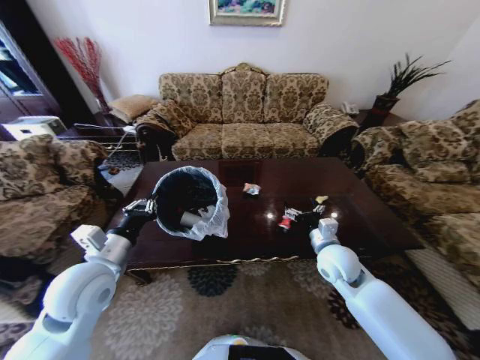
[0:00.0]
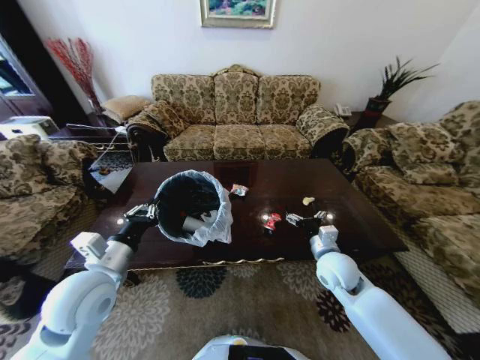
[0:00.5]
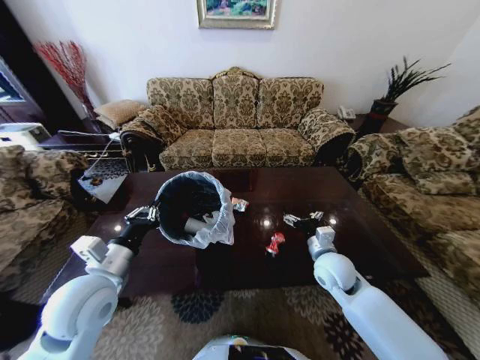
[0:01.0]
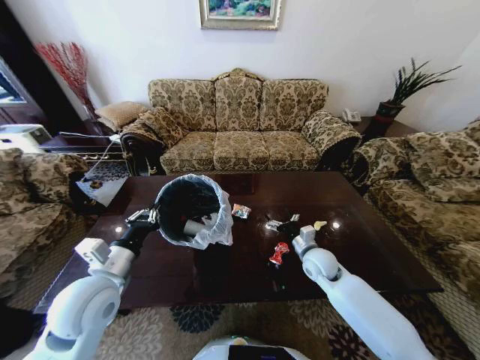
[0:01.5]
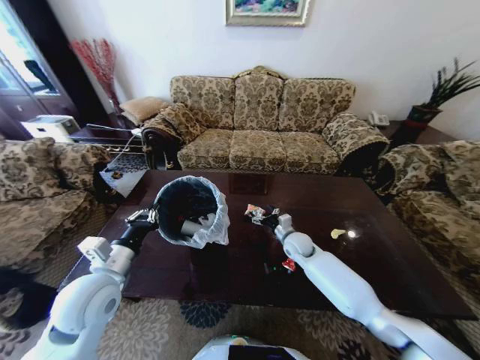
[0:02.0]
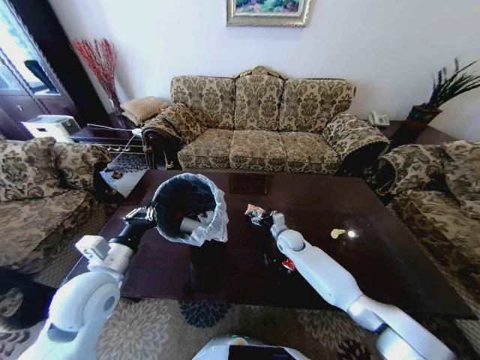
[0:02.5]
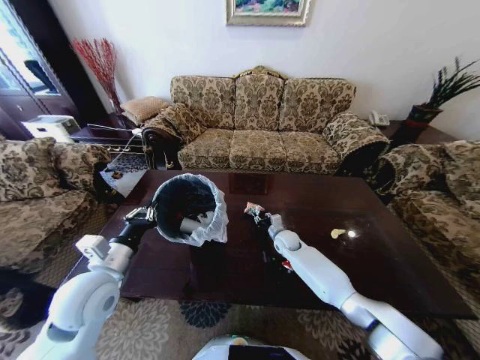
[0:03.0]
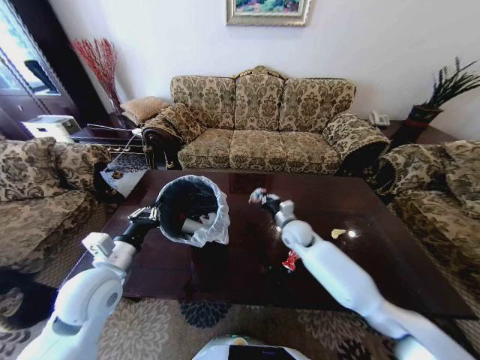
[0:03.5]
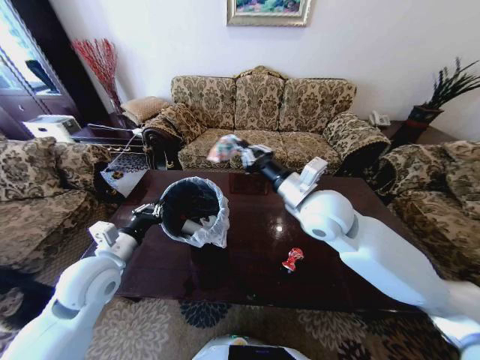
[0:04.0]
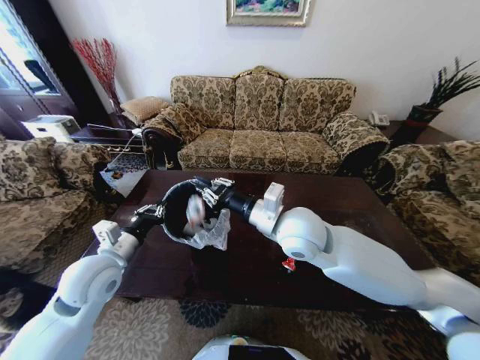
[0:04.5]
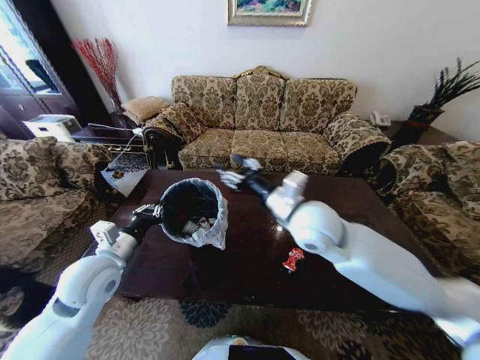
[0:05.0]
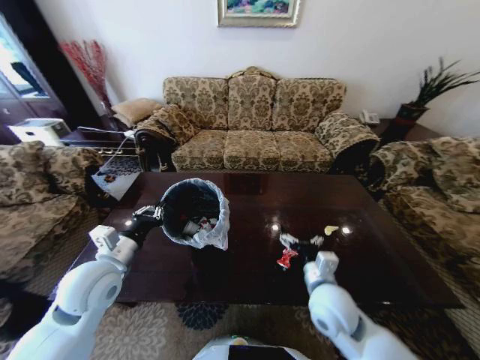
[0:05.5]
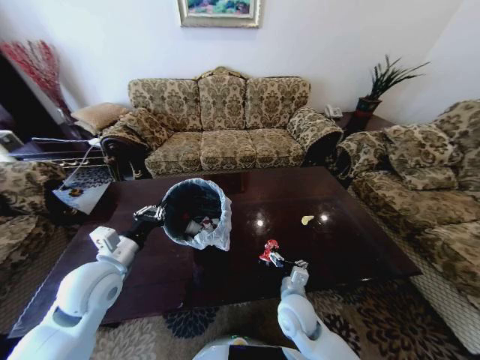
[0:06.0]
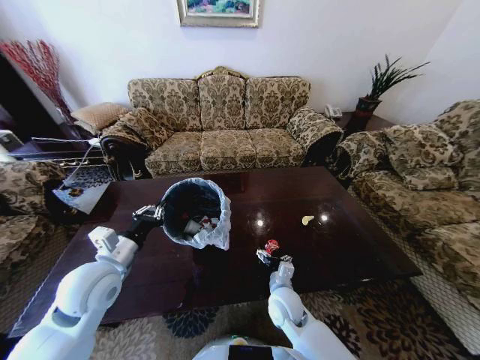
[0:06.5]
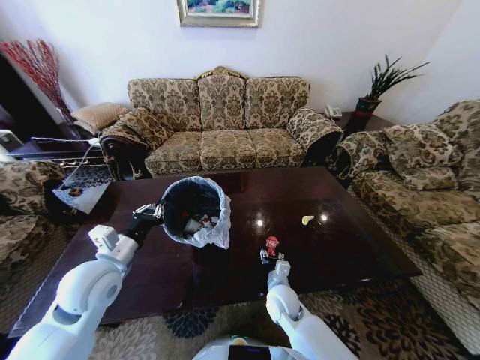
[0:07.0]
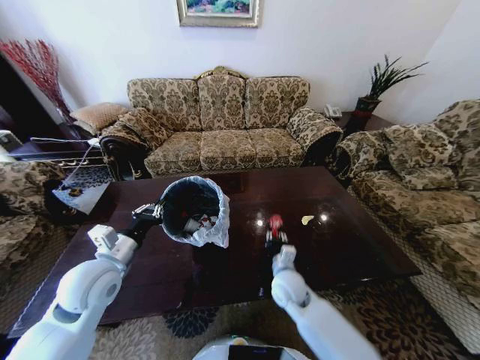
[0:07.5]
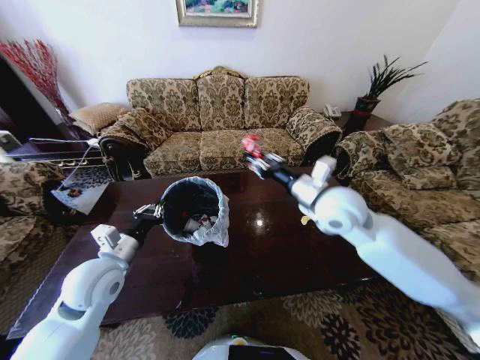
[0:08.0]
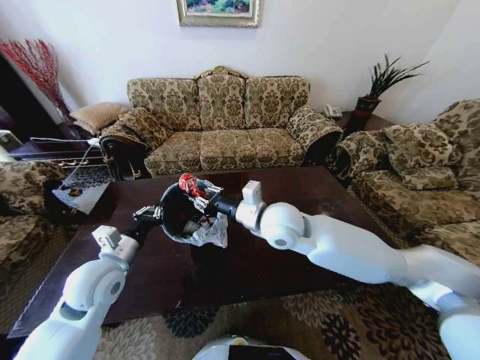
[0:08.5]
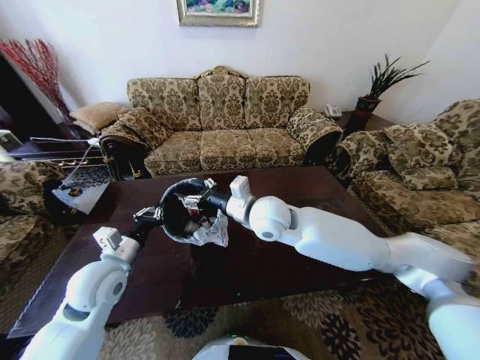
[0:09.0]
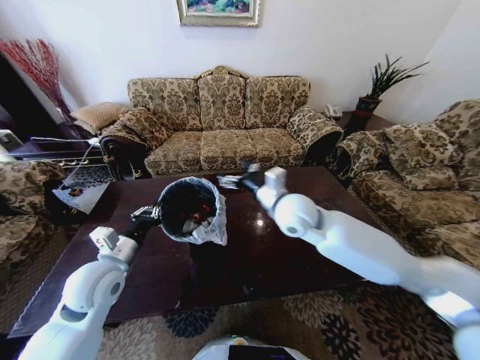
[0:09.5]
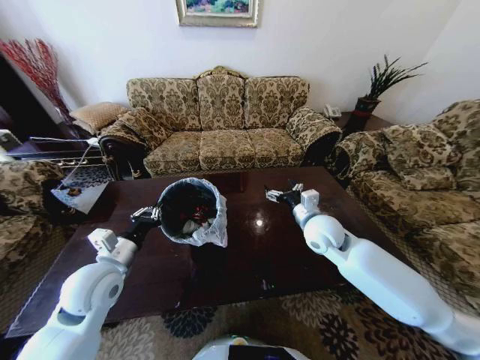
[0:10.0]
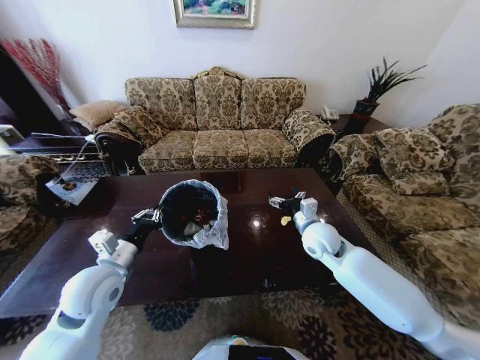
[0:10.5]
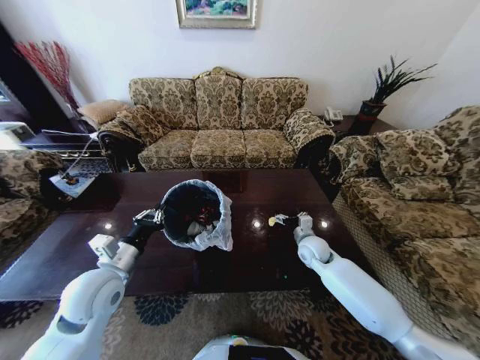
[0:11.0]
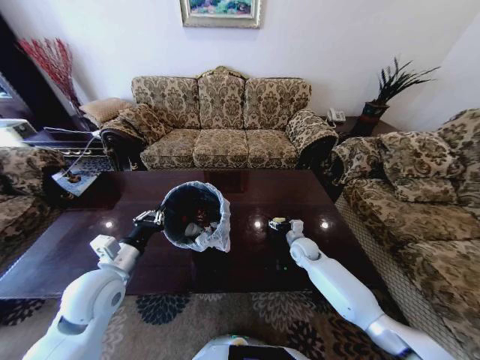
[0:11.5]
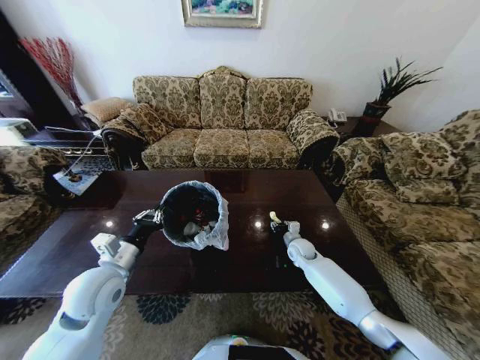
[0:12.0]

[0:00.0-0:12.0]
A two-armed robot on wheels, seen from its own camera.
Task of the whole recording: Move to the front of the table and place the trash on the table into the trash bin.
0:00.0 to 0:02.0: The right gripper moves forward and downward, about 15 cm.
0:02.0 to 0:04.0: The right gripper heads upward, covering approximately 30 cm, and closes up.
0:04.0 to 0:06.0: The right gripper goes roughly 30 cm downward, and opens.
0:06.0 to 0:08.0: The right gripper moves upward and forward, some 30 cm, and closes.
0:08.0 to 0:10.0: The right gripper goes some 10 cm downward, moves about 15 cm to the left and comes back, and opens.
0:10.0 to 0:12.0: The right gripper goes approximately 20 cm downward, and closes.

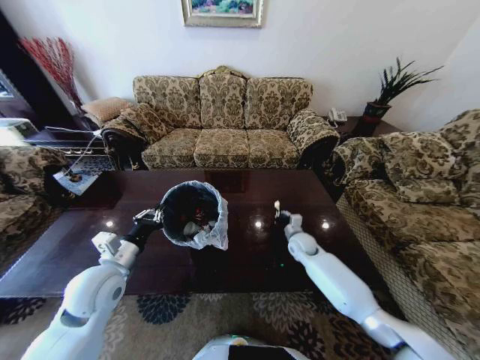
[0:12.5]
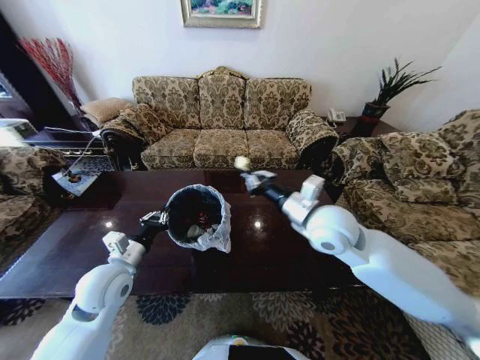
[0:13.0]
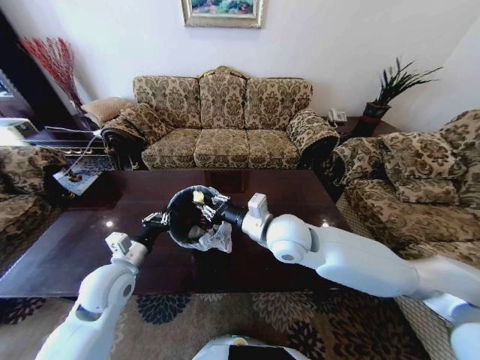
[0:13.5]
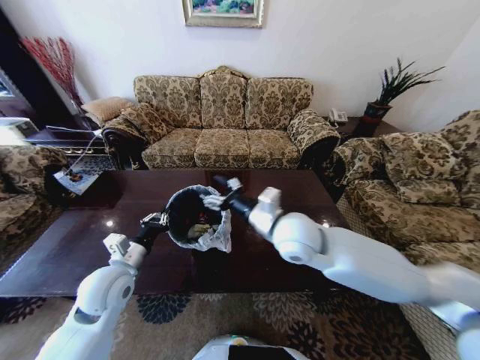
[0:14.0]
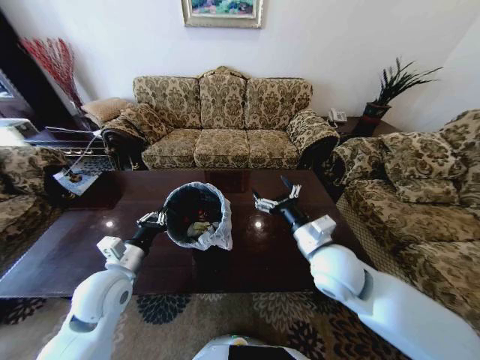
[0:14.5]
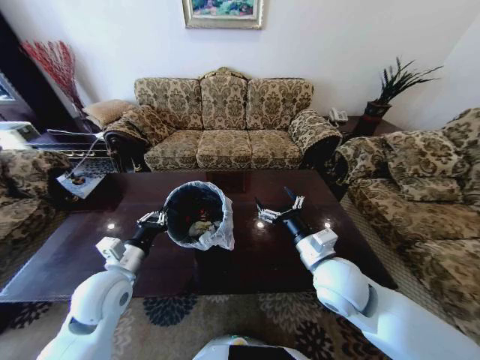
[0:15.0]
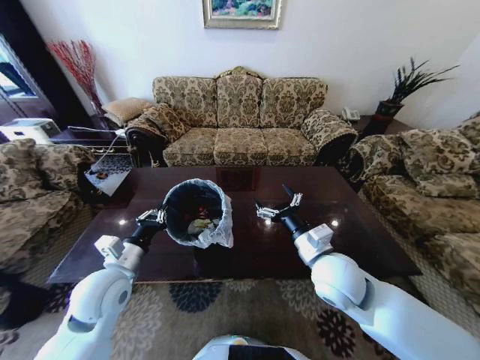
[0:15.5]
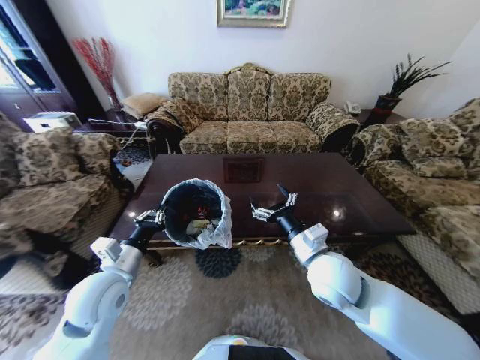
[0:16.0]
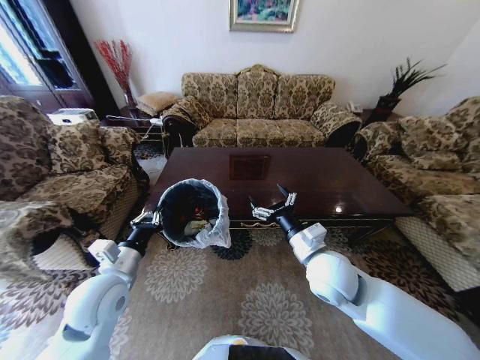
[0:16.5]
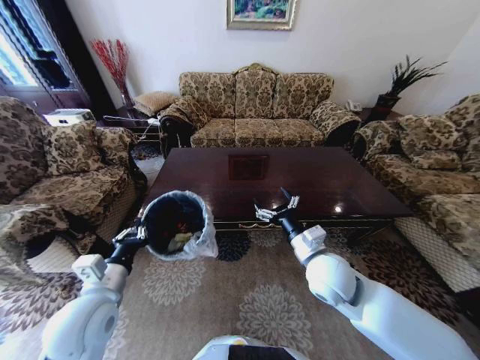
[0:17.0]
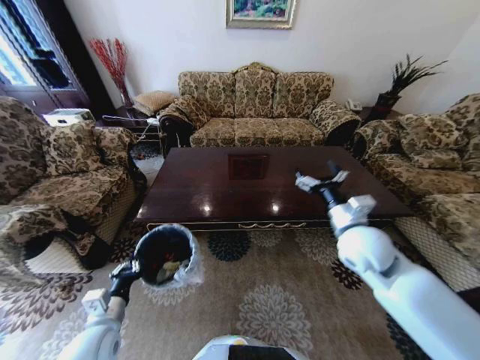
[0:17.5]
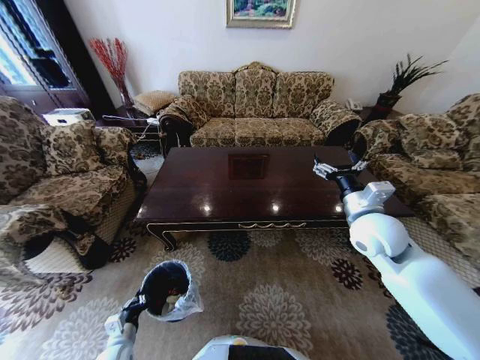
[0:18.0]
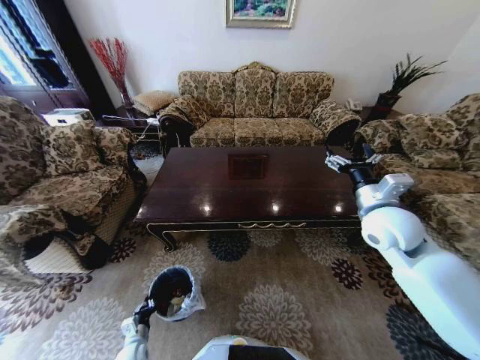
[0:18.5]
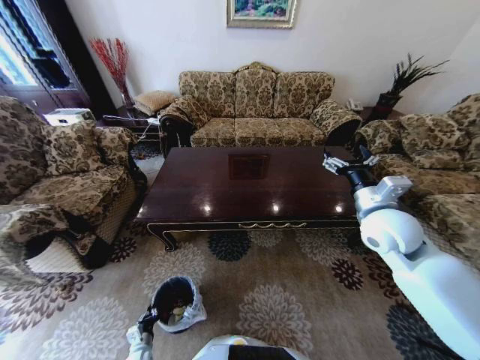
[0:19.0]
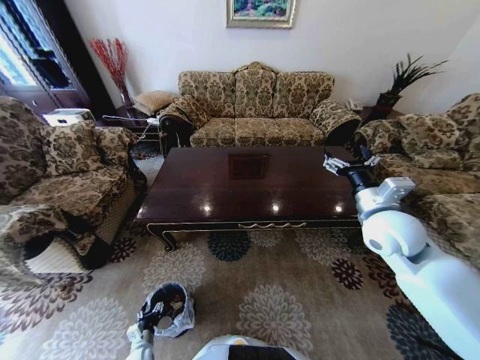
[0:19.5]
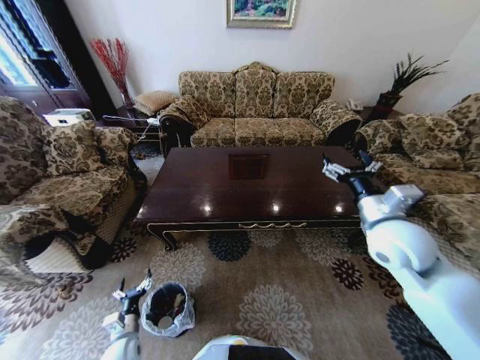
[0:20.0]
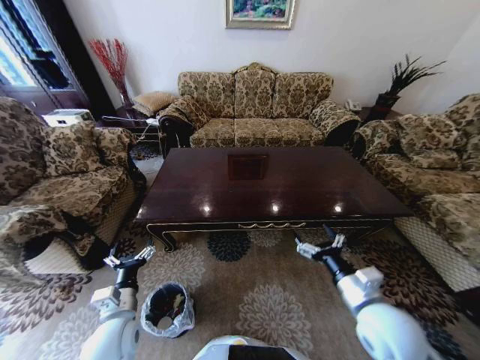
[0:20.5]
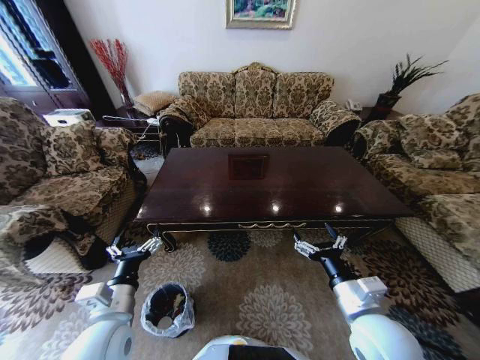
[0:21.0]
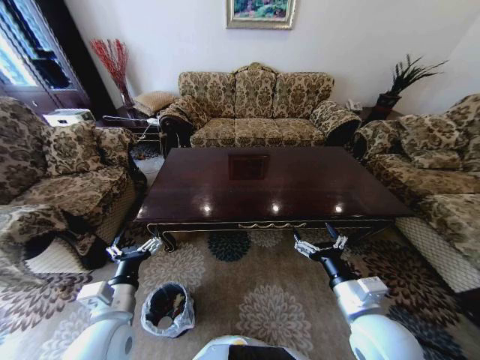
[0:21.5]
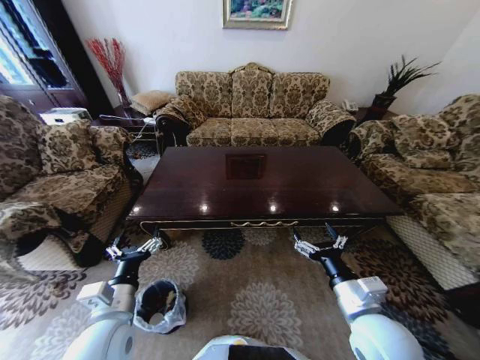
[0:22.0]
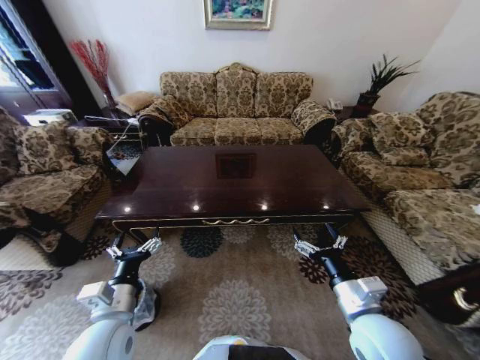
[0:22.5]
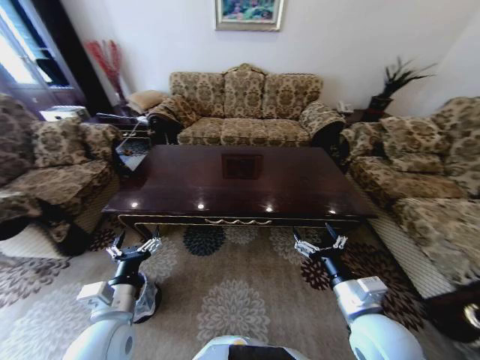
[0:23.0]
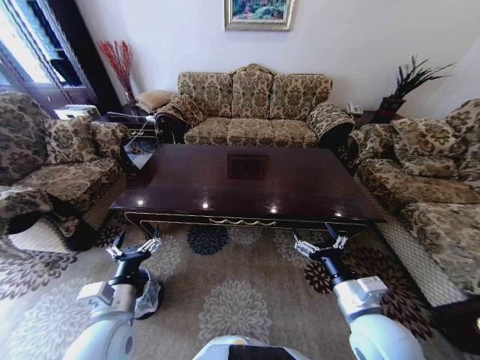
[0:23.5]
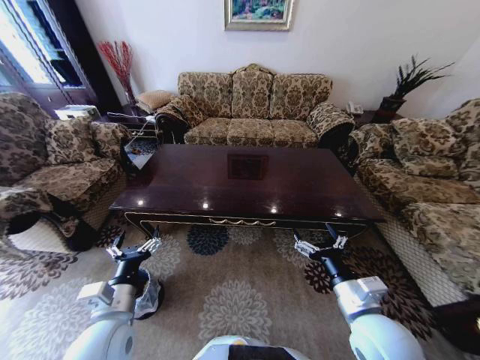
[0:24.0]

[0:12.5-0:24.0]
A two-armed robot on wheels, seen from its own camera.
Task of the whole recording: Move to the front of the table and place the trash on the table into the trash bin.
0:12.5 to 0:14.5: The right gripper travels upward and backward by some 25 cm, and opens up.
0:16.5 to 0:18.5: The left gripper is displaced downward by some 35 cm. The right gripper heads to the right, forward and upward, covering some 15 cm.
0:18.5 to 0:20.0: The left gripper is displaced upward by approximately 10 cm, and opens up.
0:20.0 to 0:22.0: The left gripper shifts roughly 25 cm upward. Meanwhile the right gripper is displaced backward and downward by approximately 20 cm.

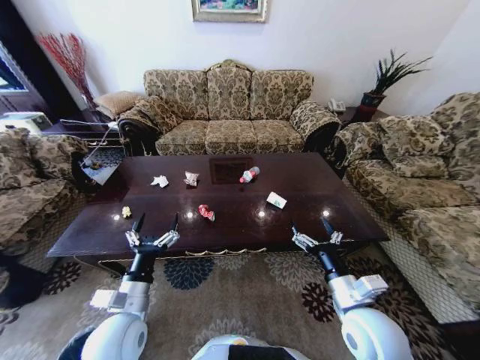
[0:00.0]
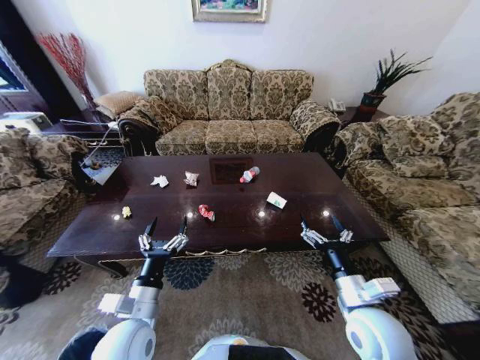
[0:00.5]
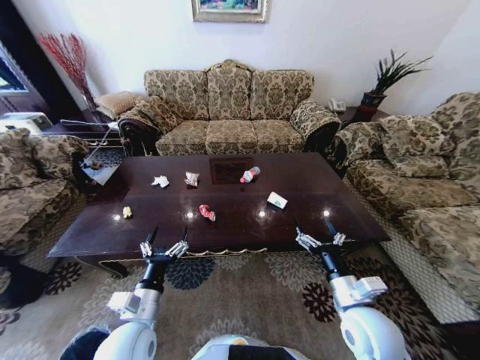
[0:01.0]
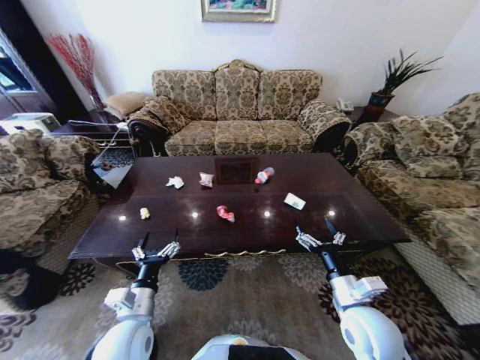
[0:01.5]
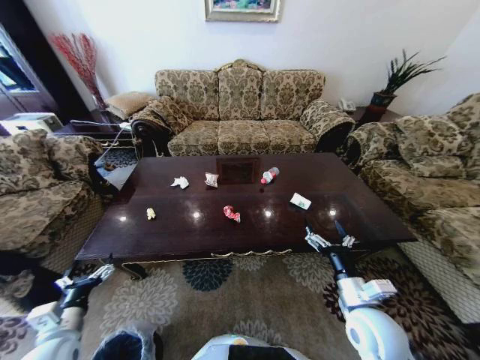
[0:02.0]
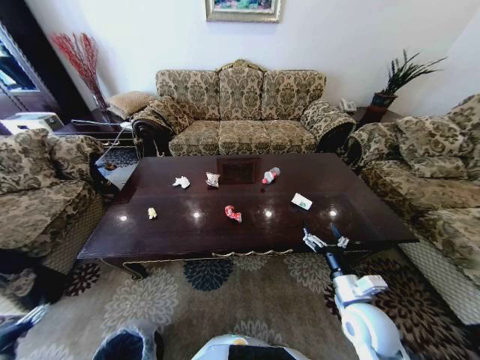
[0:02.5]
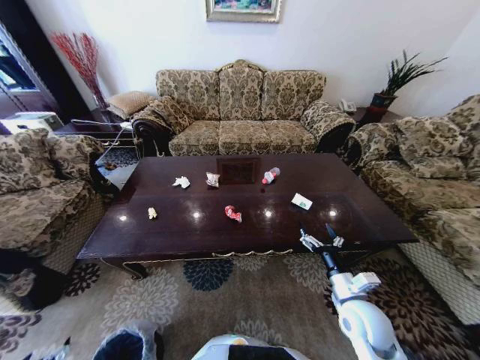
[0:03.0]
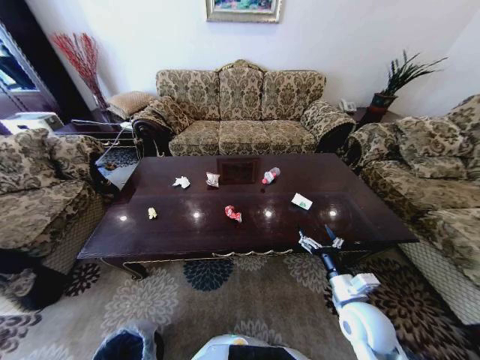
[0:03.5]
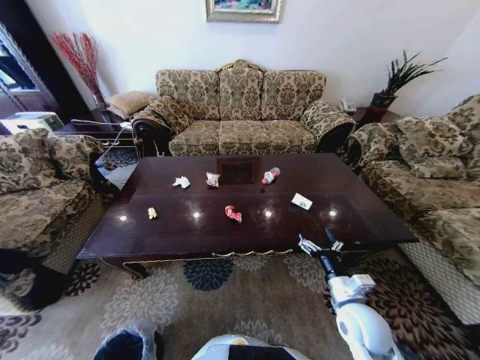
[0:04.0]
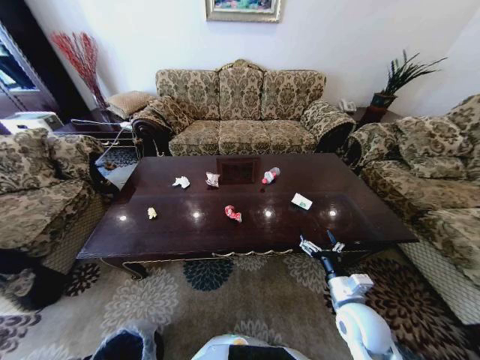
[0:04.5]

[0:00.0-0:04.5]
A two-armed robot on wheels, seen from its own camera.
Task of the whole recording: Move to the front of the table and place the trash on the table into the trash bin.
0:02.0 to 0:04.5: The left gripper goes roughly 30 cm downward and to the left.
